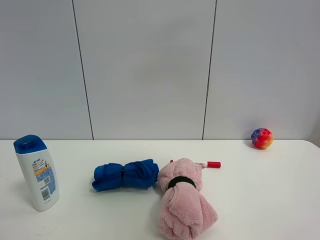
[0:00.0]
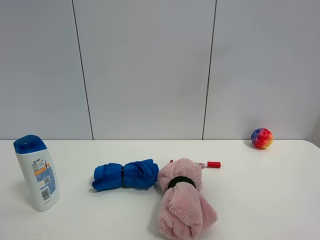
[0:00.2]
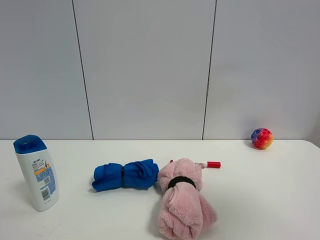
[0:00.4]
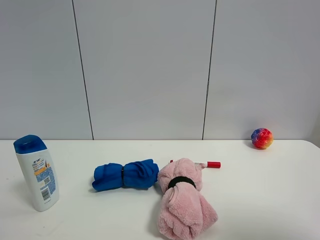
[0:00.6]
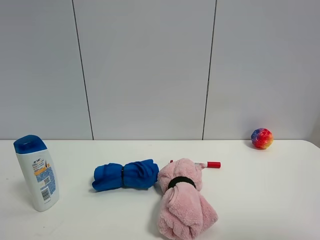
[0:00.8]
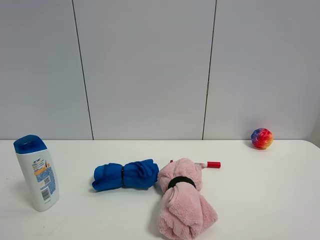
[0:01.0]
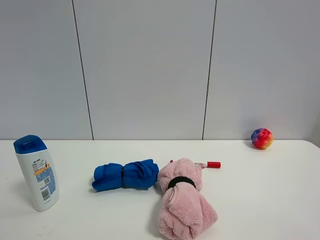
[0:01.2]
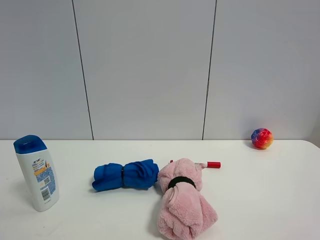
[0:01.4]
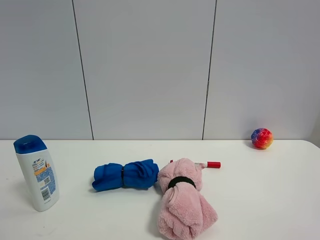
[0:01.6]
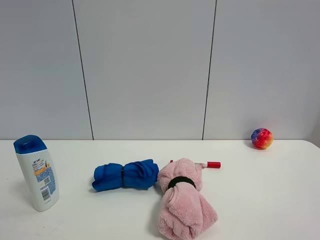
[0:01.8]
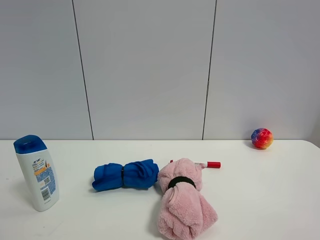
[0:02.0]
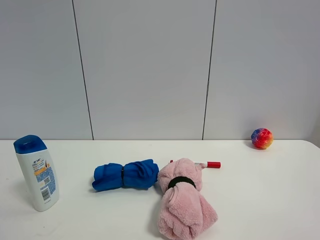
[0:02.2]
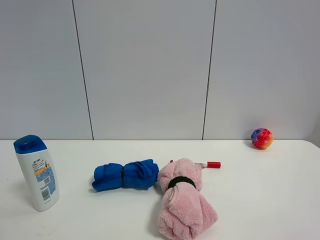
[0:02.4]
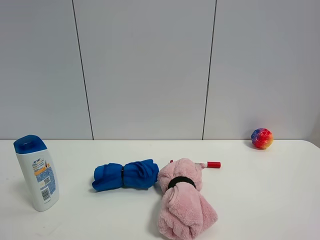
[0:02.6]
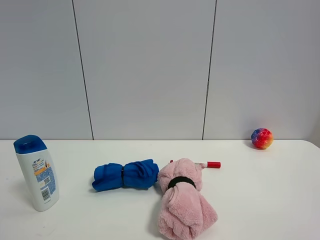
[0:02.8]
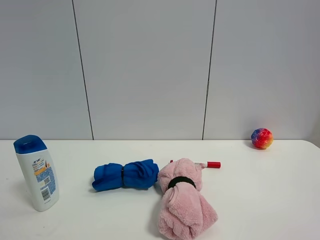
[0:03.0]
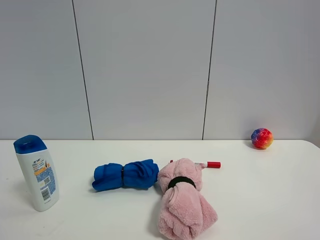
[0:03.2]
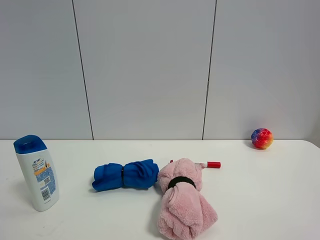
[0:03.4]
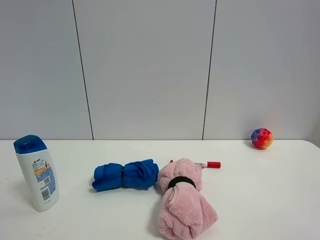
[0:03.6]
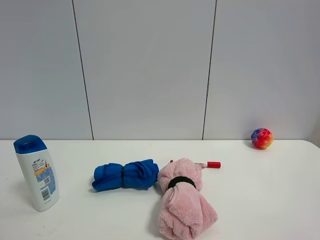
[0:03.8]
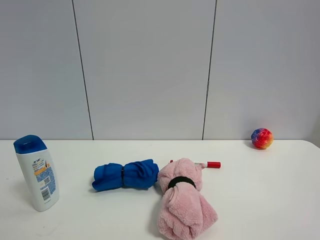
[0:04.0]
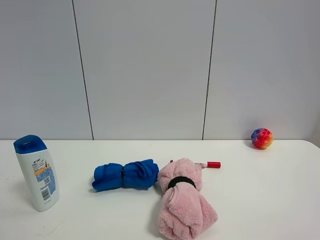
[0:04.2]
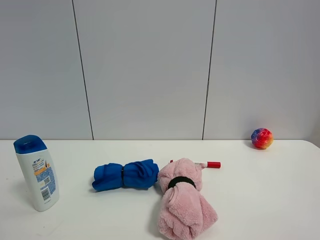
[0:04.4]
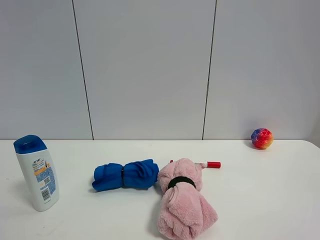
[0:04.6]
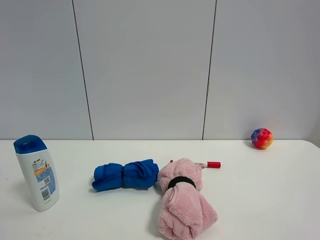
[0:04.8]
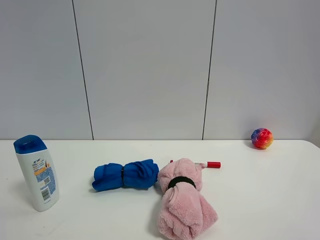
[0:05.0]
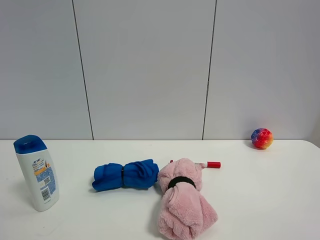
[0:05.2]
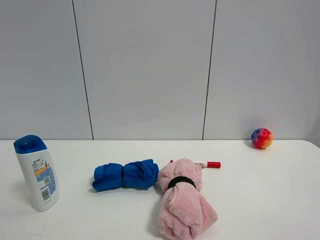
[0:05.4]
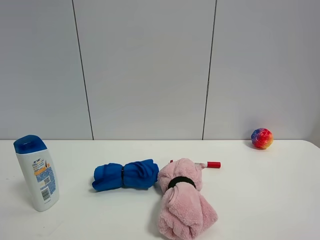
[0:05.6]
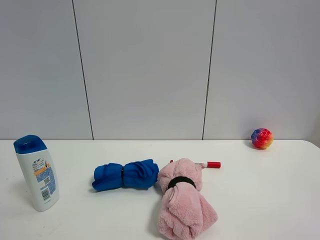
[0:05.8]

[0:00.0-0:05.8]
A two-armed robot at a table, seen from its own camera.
Task of the whole recording: the gripper move the object.
0:00.0 to 0:01.4: The right gripper goes some 30 cm downward, backward and to the right.
0:01.4 to 0:05.8: The two grippers keep their place.
